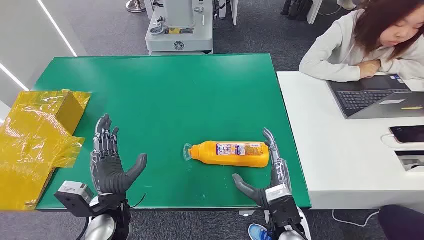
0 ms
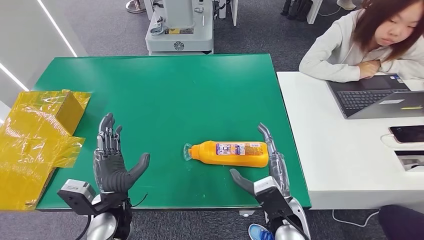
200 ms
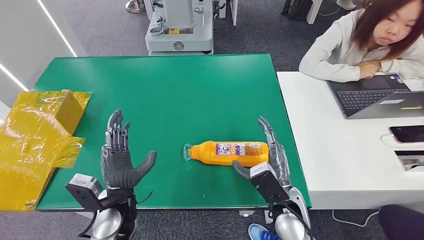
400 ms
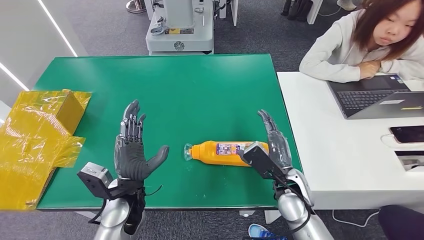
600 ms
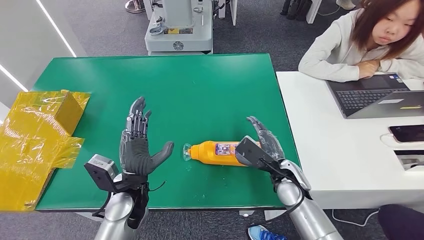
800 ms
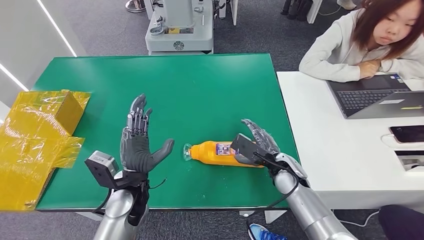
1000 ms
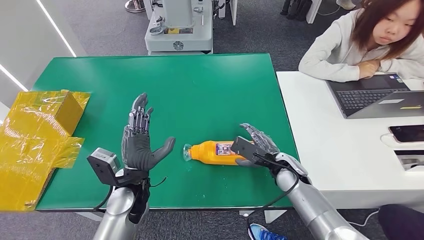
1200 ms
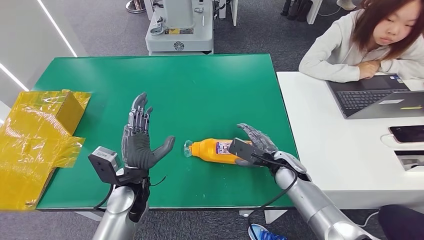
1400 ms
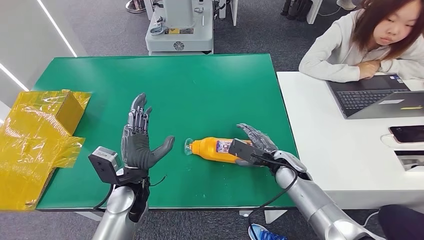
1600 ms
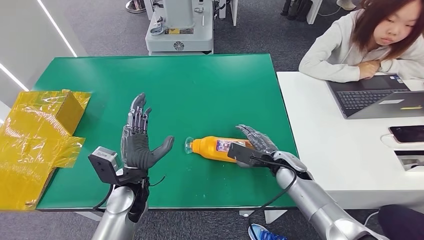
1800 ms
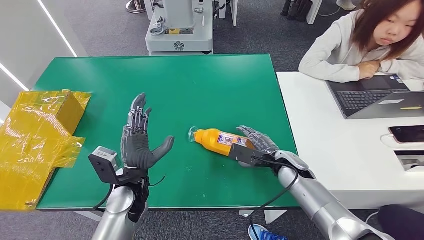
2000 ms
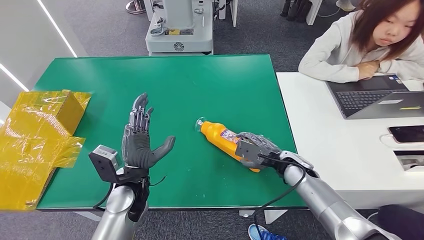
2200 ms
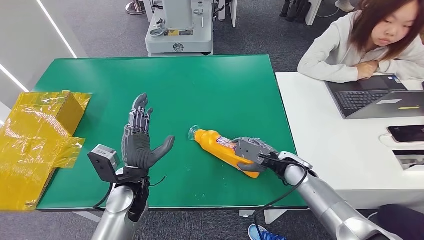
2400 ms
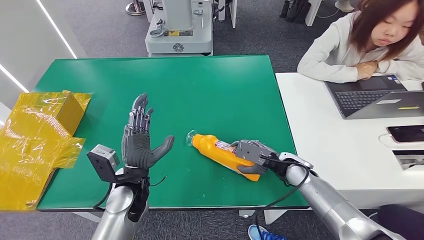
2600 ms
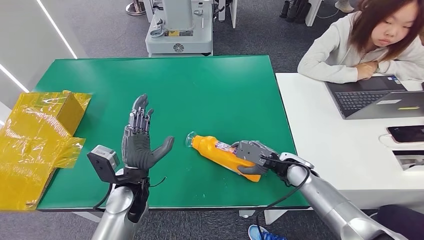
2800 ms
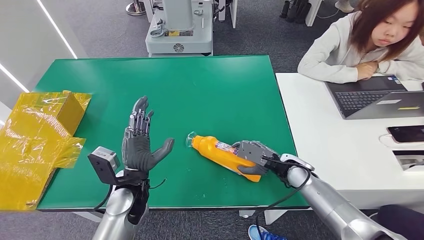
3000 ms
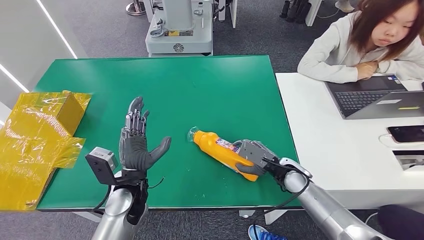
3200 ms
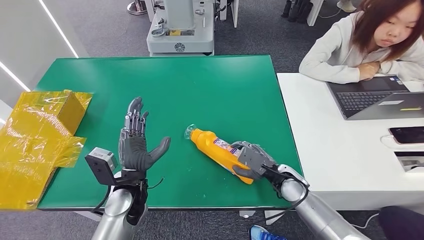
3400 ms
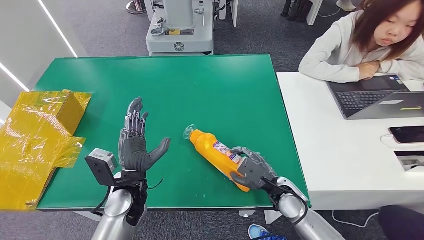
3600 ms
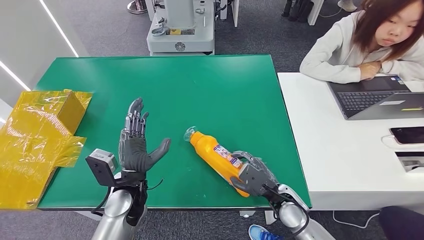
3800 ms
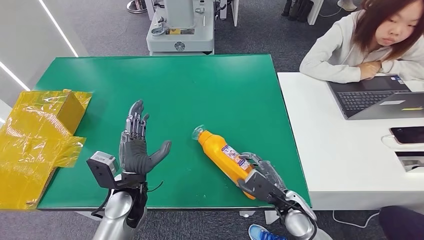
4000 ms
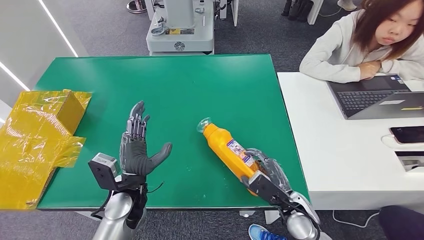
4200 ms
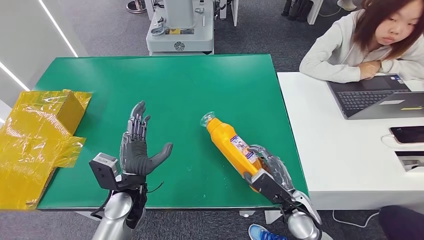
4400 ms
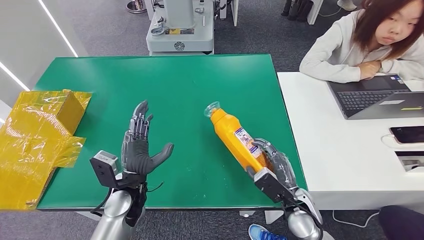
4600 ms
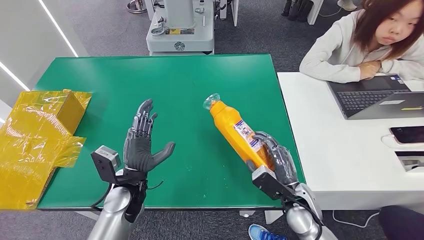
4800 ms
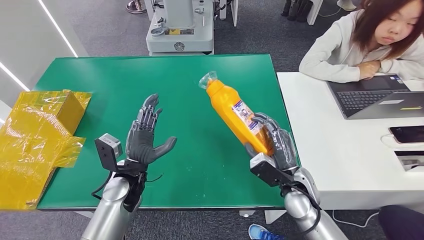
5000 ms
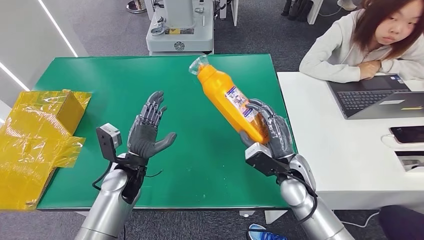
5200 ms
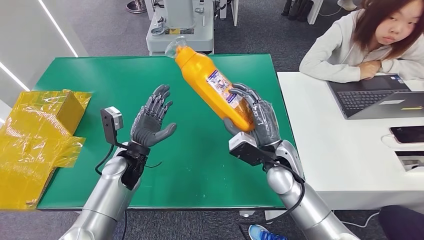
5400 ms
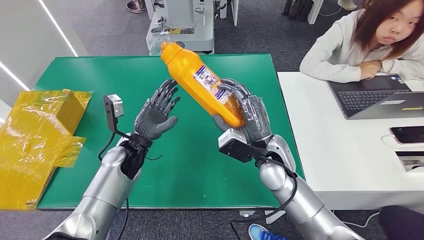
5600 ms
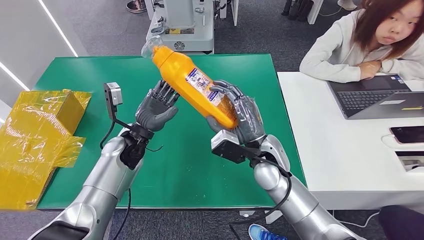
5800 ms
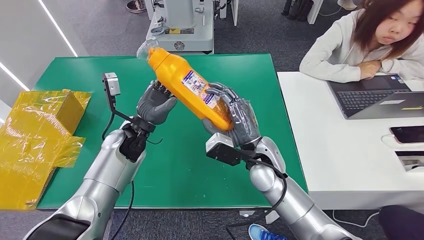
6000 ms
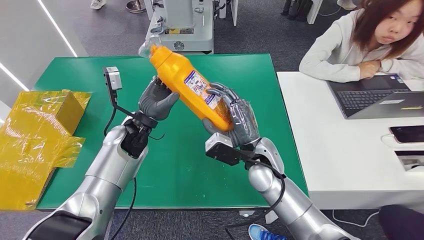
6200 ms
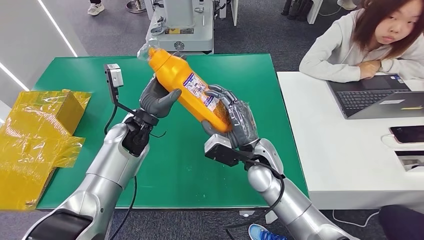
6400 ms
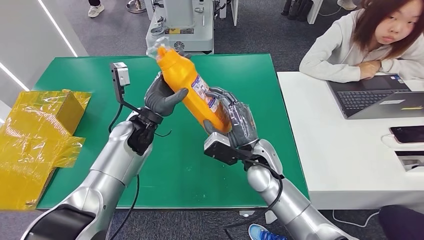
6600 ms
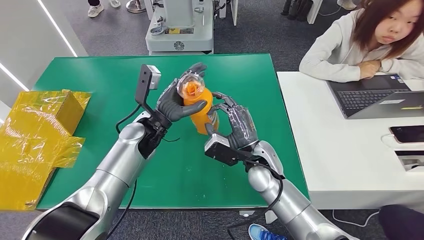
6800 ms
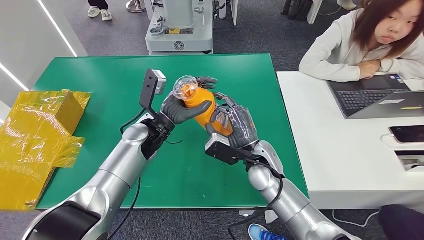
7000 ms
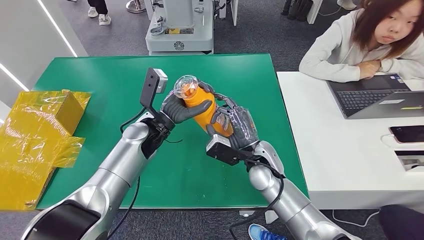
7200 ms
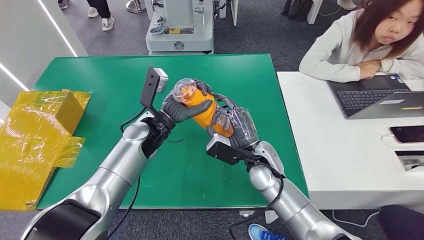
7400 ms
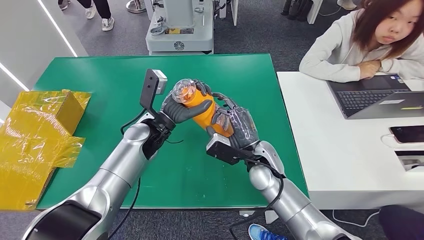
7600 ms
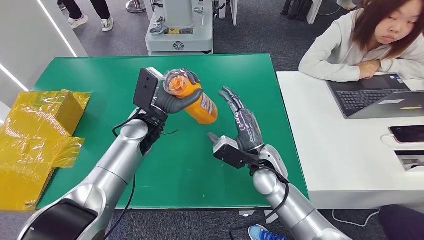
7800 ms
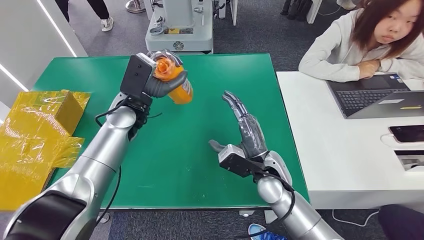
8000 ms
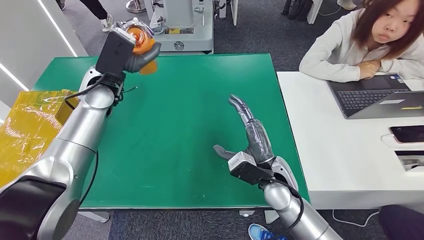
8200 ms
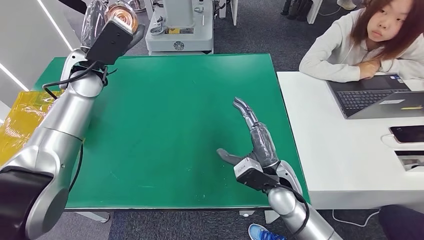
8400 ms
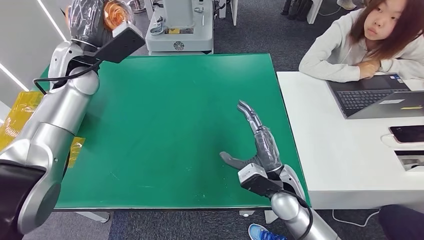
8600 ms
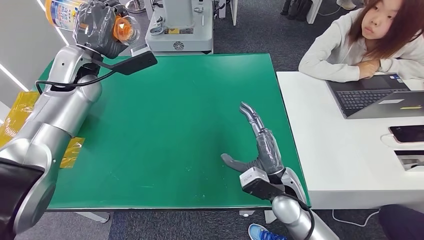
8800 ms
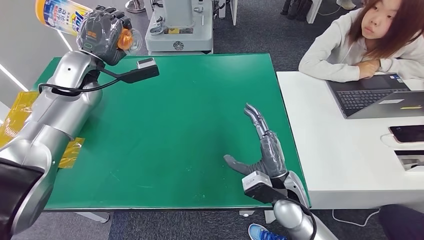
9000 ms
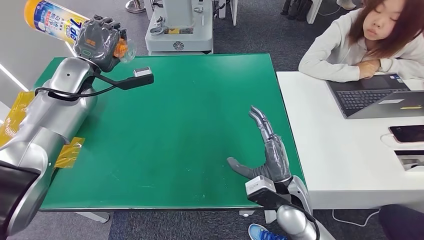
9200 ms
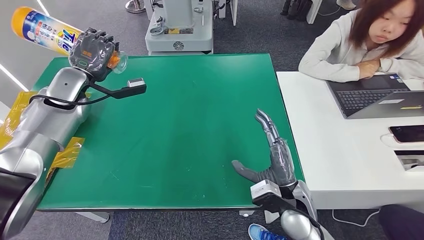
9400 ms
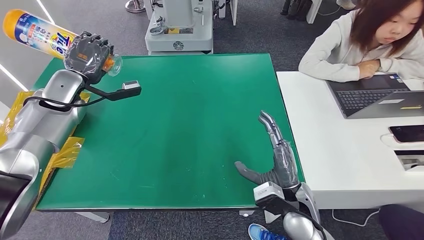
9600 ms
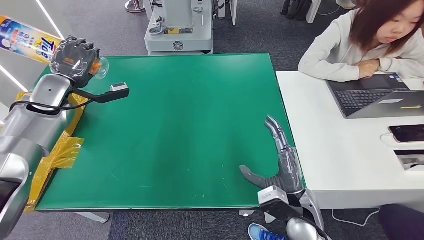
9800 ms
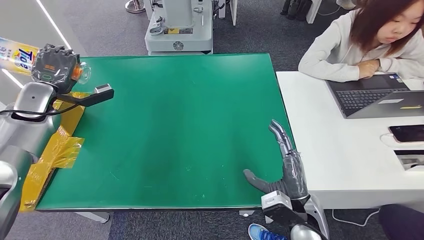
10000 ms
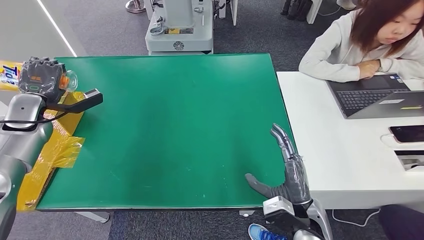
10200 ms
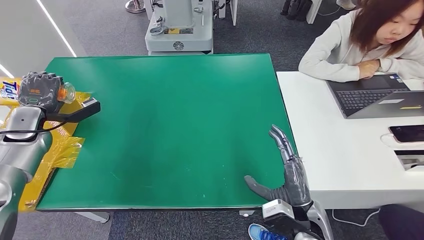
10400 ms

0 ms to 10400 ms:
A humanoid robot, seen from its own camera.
Step, 0 ms to 5600 ms: Pick up the bottle from the table.
Step, 6400 ms to 10400 ms: Turn the bottle to the front side.
3000 ms to 4400 ms: The right hand shifts some 10 cm backward.
4400 ms to 6000 ms: The left hand travels forward and upward by about 15 cm. The right hand is displaced upward, to the left and forward by about 20 cm.
